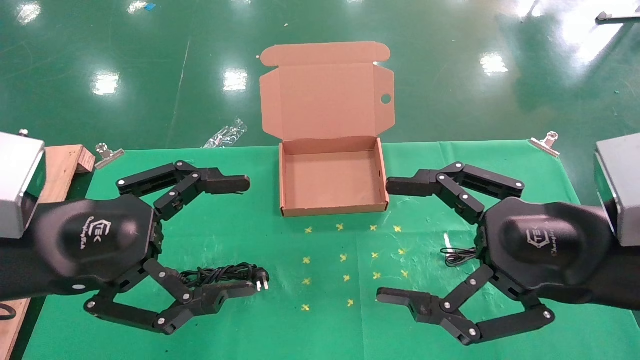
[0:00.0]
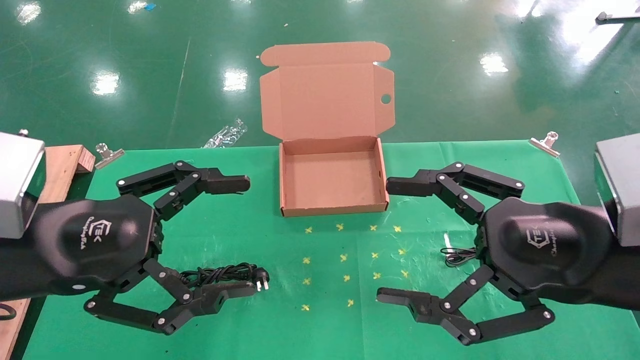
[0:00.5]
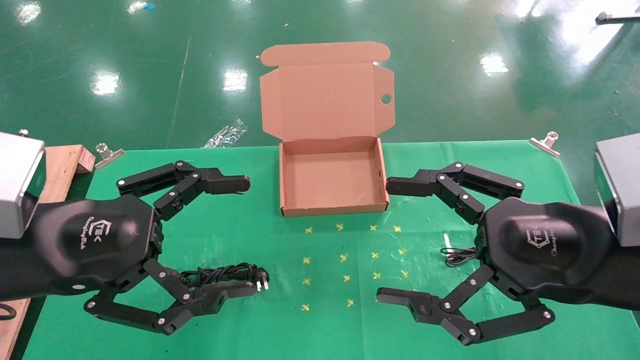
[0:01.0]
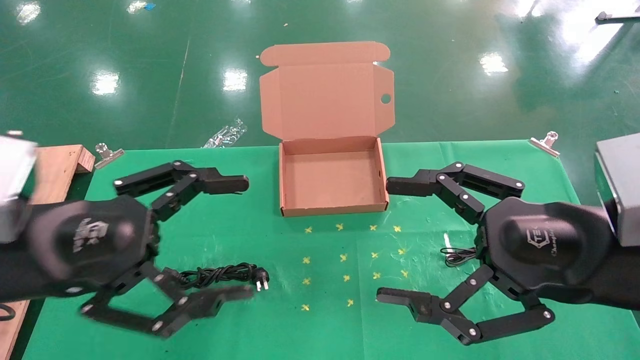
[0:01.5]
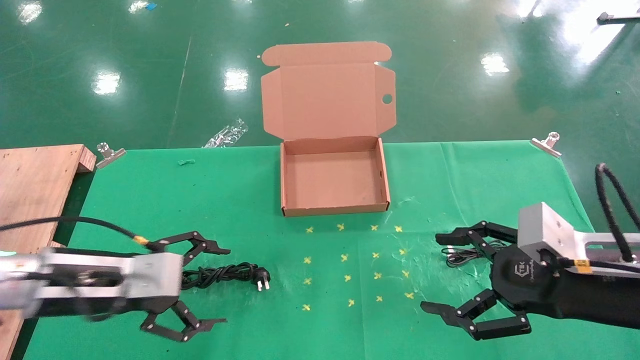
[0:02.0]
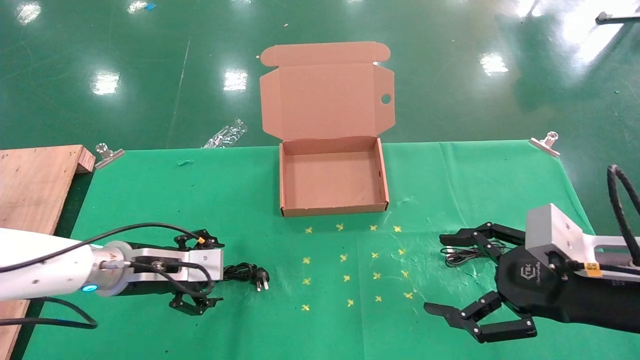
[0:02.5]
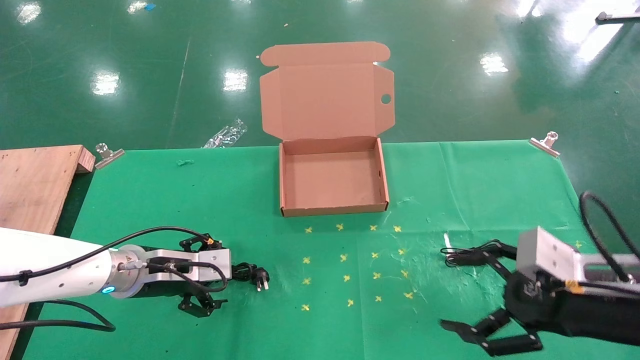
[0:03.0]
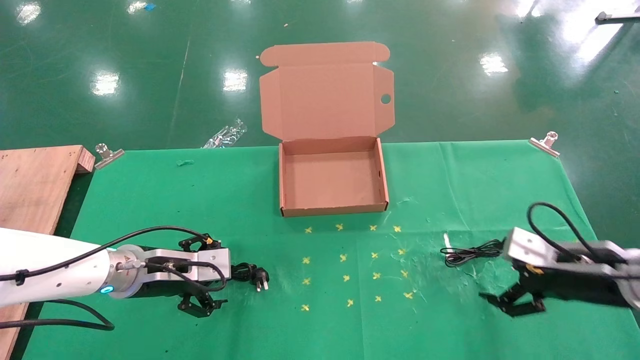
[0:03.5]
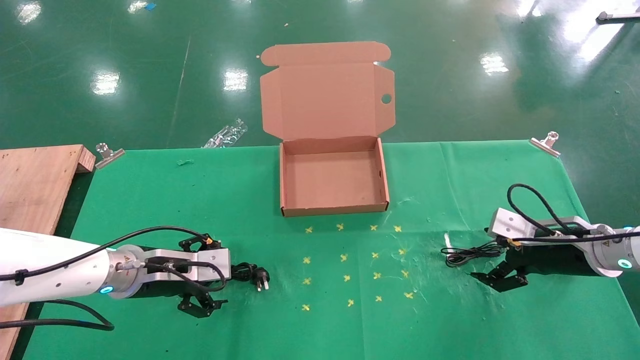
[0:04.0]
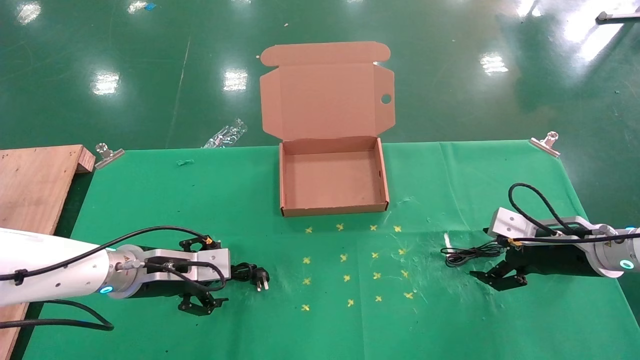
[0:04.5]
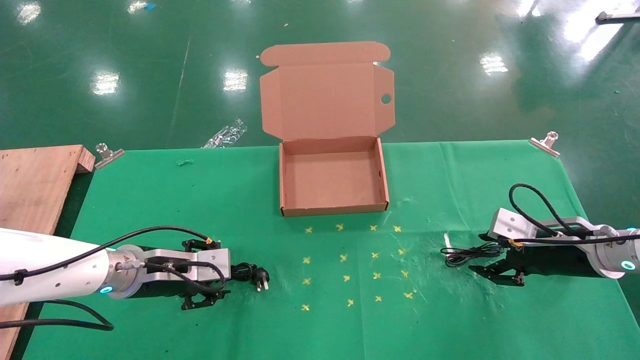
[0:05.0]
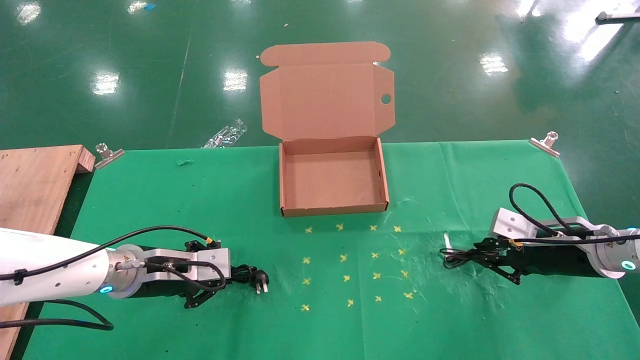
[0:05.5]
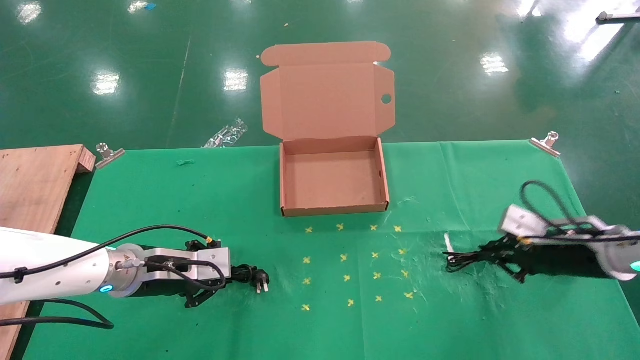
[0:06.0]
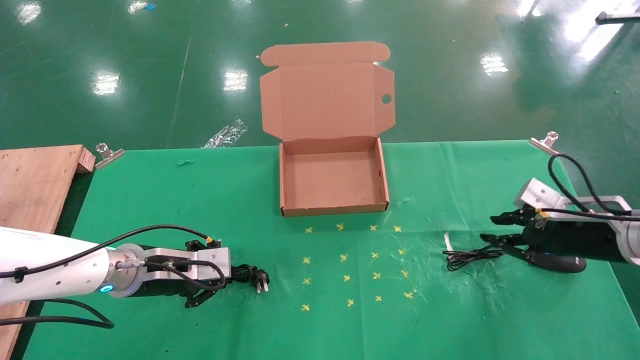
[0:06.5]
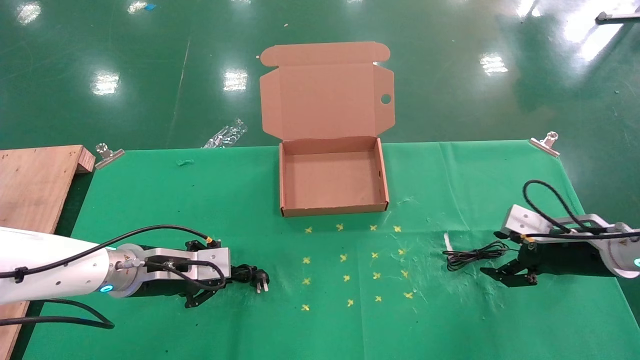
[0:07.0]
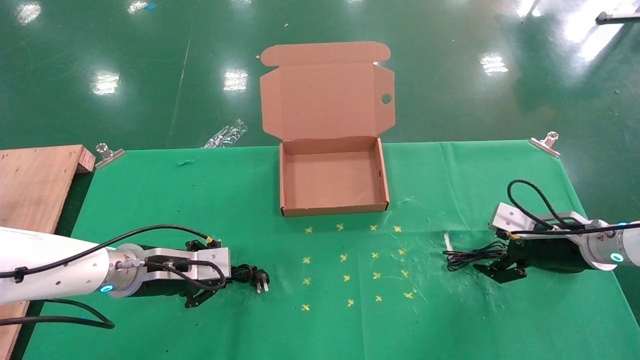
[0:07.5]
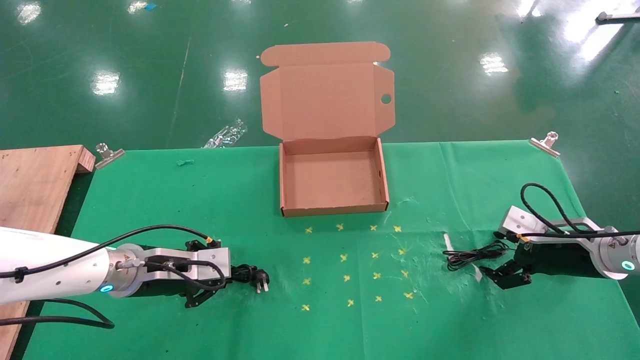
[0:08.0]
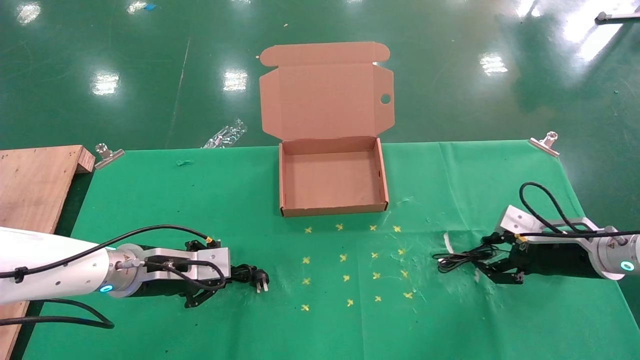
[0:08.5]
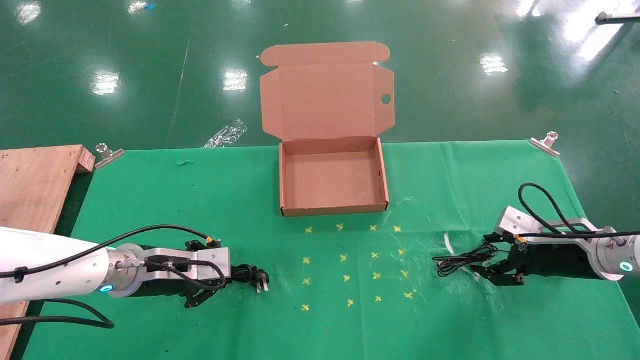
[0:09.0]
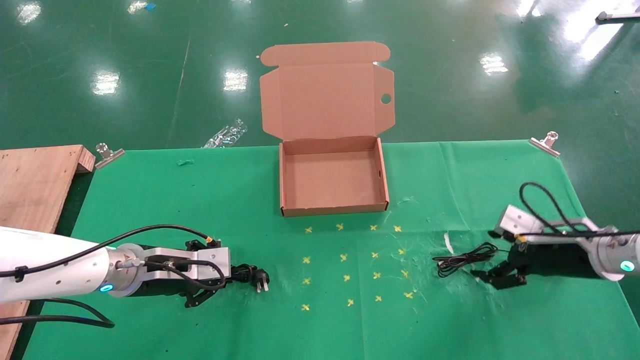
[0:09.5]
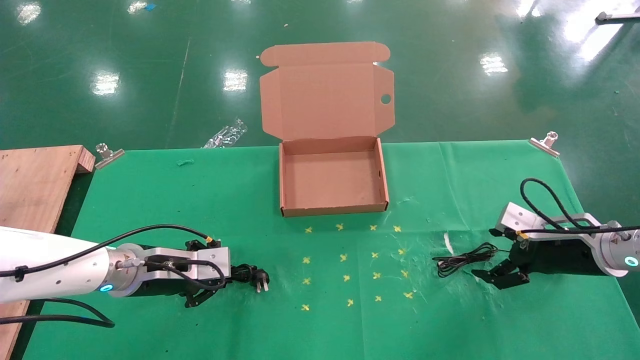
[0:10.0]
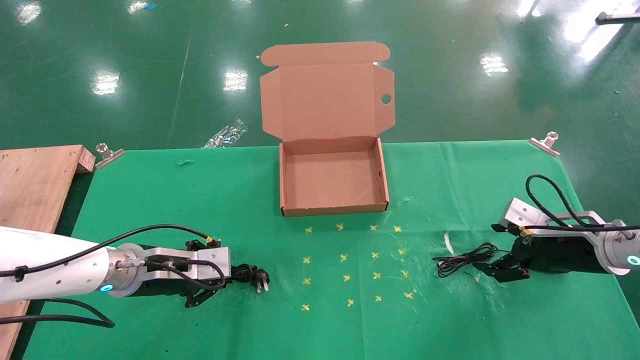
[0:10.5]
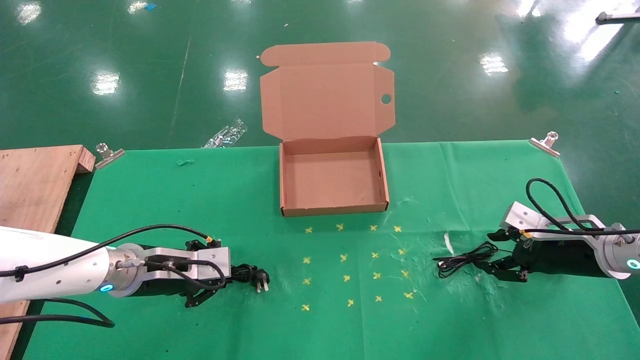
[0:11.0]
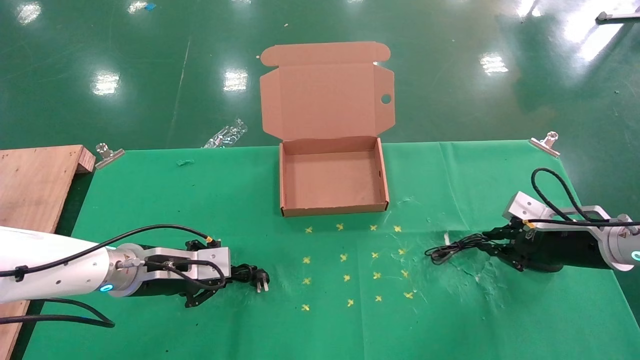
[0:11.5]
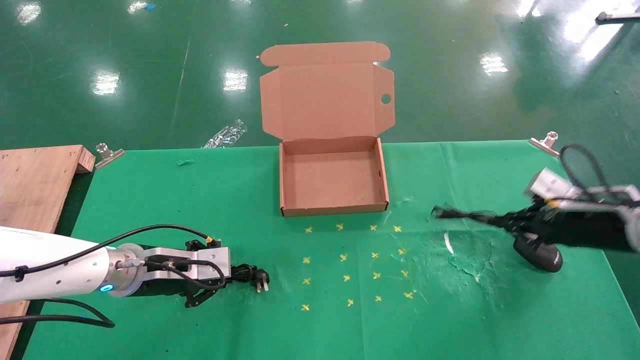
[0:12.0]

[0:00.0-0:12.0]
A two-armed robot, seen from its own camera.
Task of the whole recording: grasp data cable left put into box grasp mouse right put into box.
Step, 0:02.0 to 0:11.5: Simultaneously pick up the mouse and power cord from the accessory packaging area.
0:00.0 to 0:02.0: The left gripper is displaced downward and forward by roughly 15 cm. The right gripper heads downward, covering roughly 5 cm.
0:02.0 to 0:04.0: The right gripper goes some 20 cm forward, to the right and downward. The left gripper goes roughly 10 cm forward and downward.
0:04.0 to 0:06.0: The right gripper closes. The left gripper closes.
0:06.0 to 0:08.0: The right gripper opens up.
0:08.0 to 0:10.0: The grippers move only a little.
0:10.0 to 0:12.0: The right gripper goes some 5 cm upward, and closes.

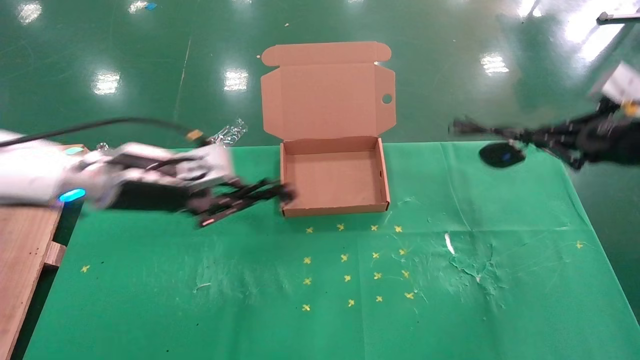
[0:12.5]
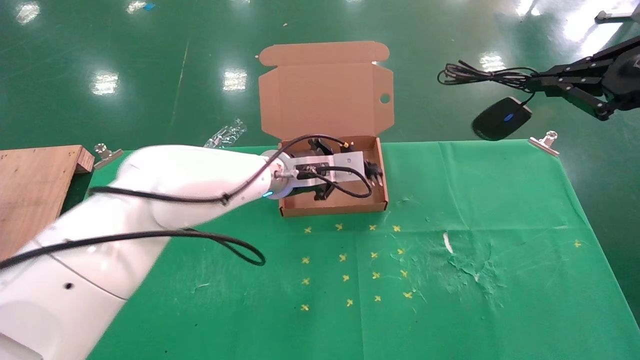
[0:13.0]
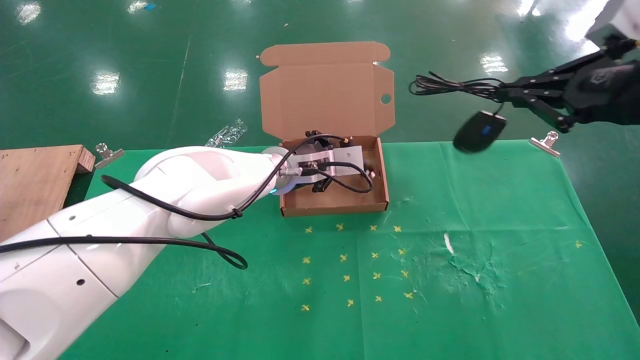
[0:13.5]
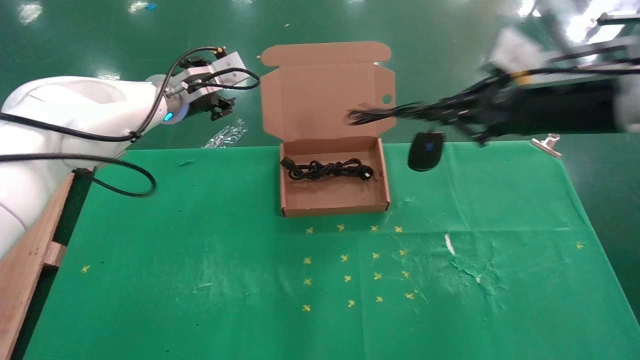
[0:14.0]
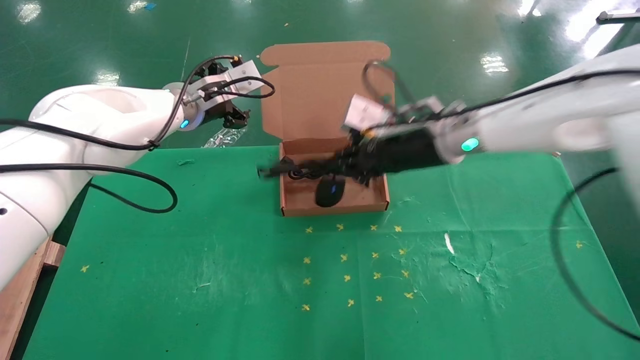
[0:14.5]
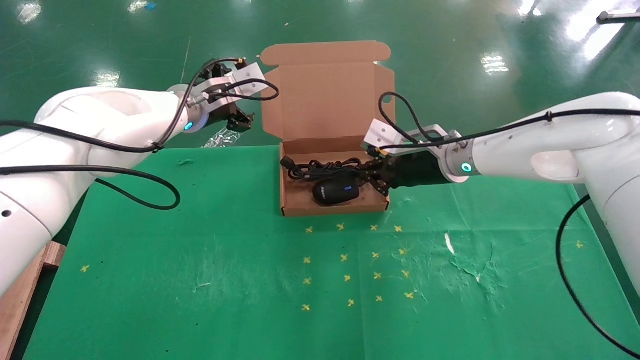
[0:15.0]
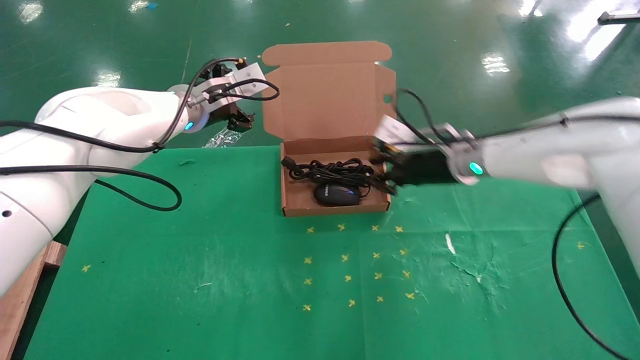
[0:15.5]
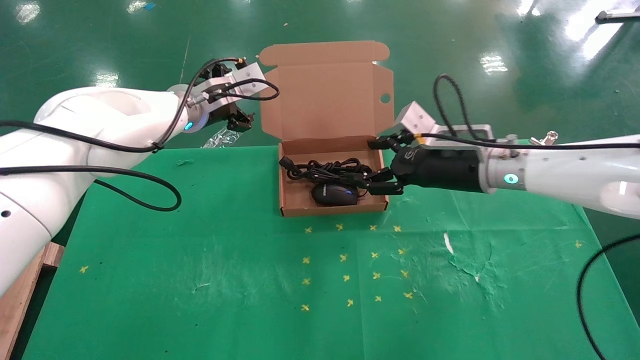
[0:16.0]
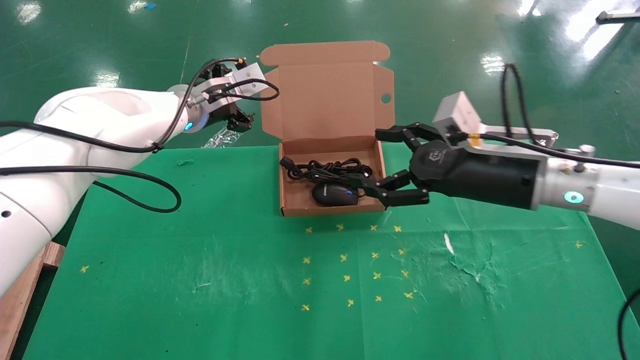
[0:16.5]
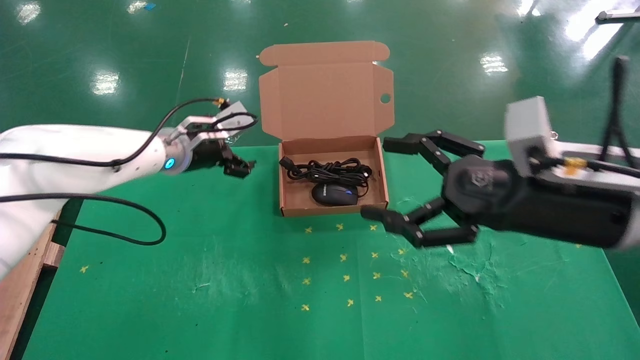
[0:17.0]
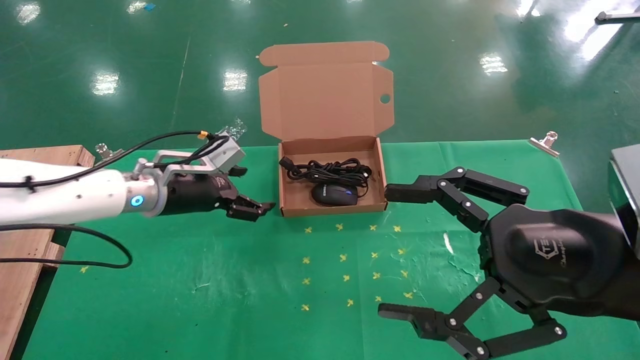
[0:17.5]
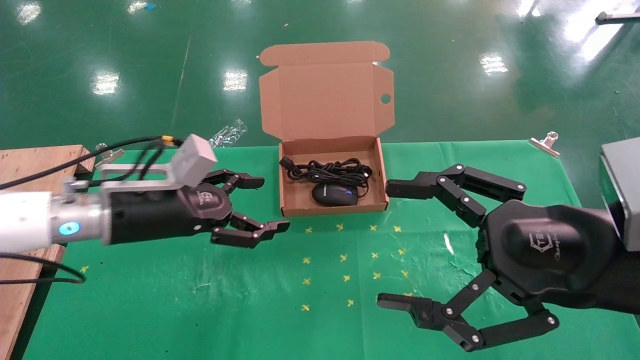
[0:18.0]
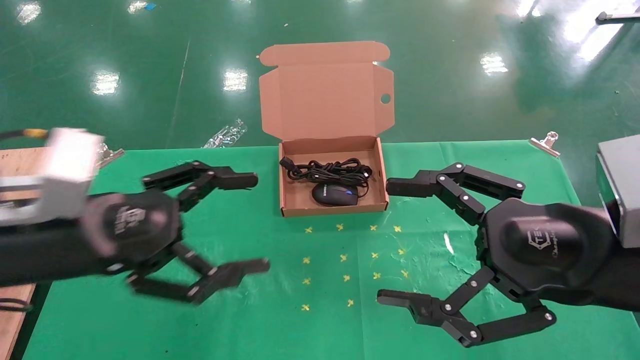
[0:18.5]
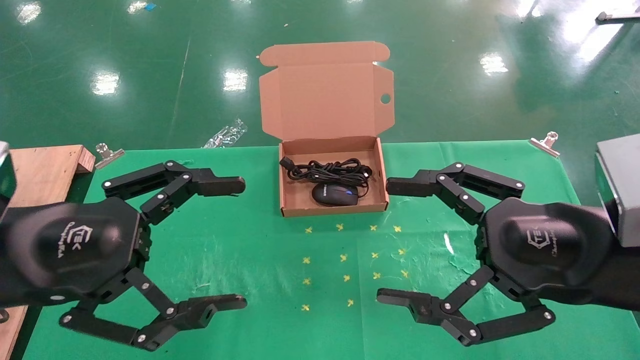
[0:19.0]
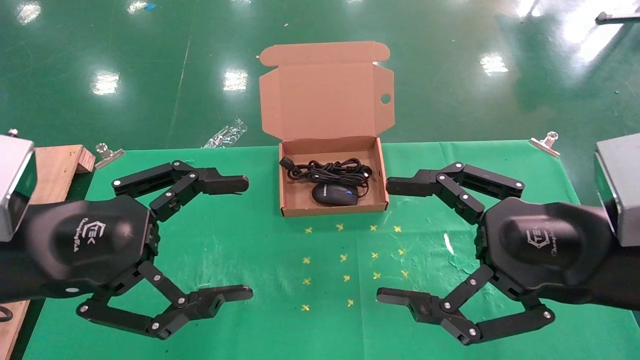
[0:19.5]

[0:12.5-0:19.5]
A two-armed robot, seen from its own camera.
Task of the whole recording: grasp data cable left put into box grasp mouse right put into box.
Step, 0:12.5 to 0:15.0: Place the mouse and power cord into the box.
0:12.5 to 0:14.5: The left gripper moves forward and upward, about 15 cm, reaches approximately 15 cm to the right, then returns, and opens; the right gripper moves to the left, approximately 25 cm.
0:14.5 to 0:16.0: The right gripper changes place by some 5 cm, and opens.
0:16.0 to 0:17.5: The right gripper heads backward, covering some 20 cm. Meanwhile the left gripper heads downward and backward, covering about 15 cm.
0:17.5 to 0:19.5: The left gripper shifts about 20 cm backward.
